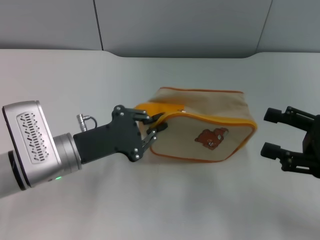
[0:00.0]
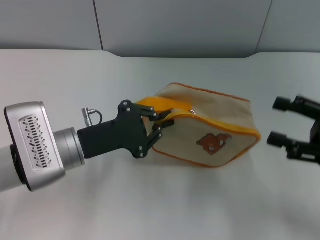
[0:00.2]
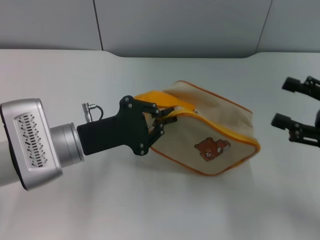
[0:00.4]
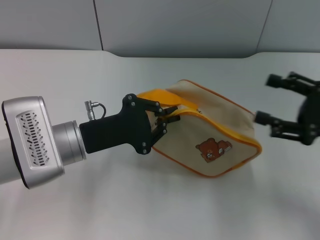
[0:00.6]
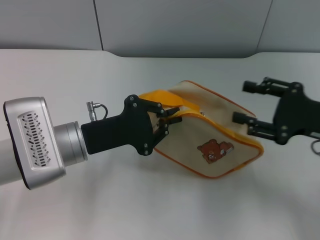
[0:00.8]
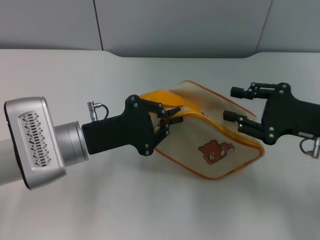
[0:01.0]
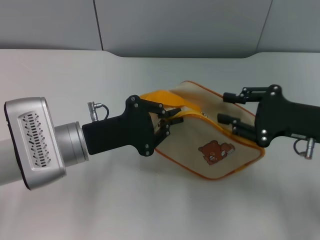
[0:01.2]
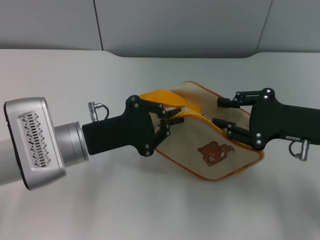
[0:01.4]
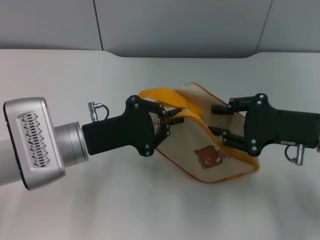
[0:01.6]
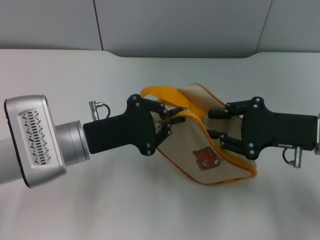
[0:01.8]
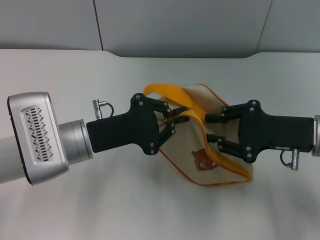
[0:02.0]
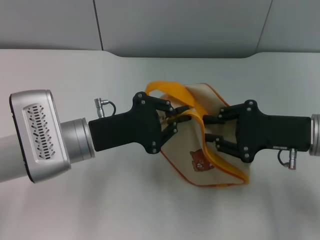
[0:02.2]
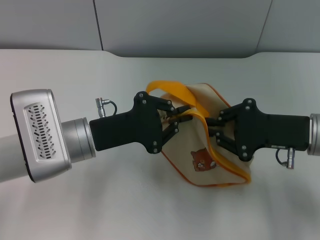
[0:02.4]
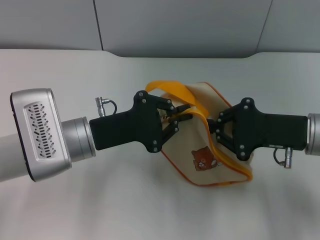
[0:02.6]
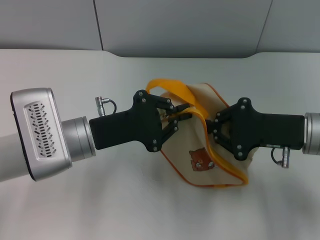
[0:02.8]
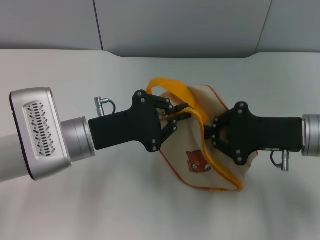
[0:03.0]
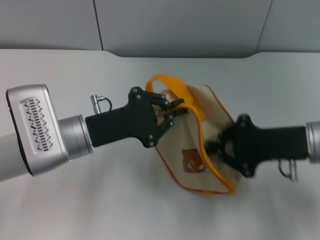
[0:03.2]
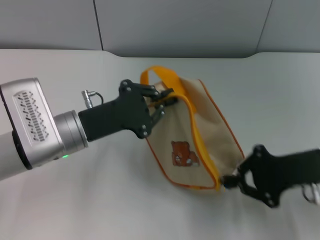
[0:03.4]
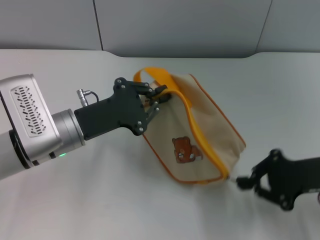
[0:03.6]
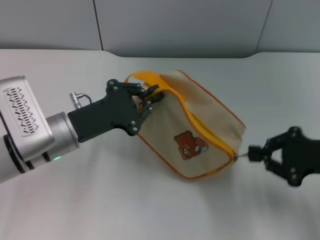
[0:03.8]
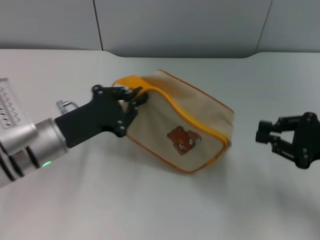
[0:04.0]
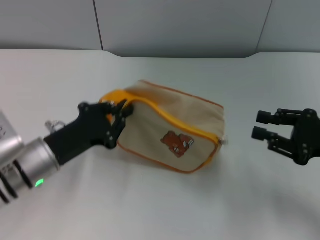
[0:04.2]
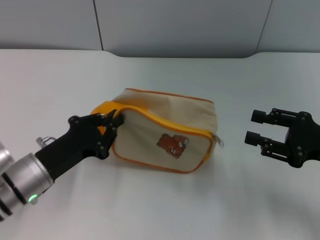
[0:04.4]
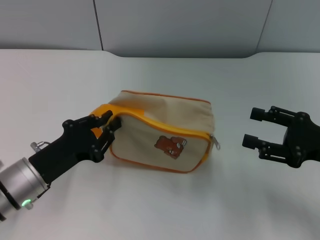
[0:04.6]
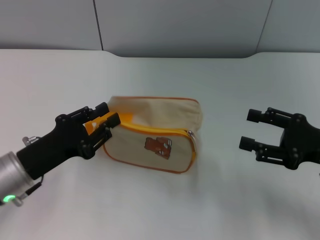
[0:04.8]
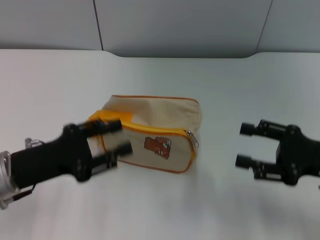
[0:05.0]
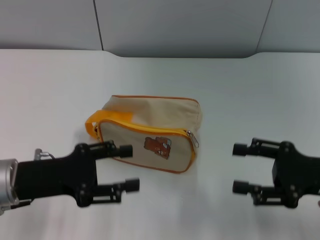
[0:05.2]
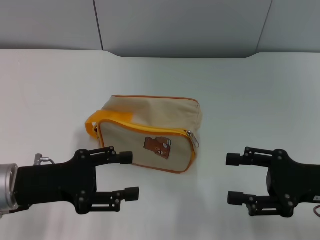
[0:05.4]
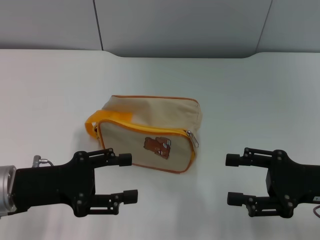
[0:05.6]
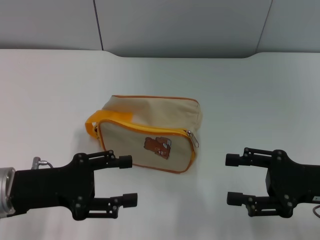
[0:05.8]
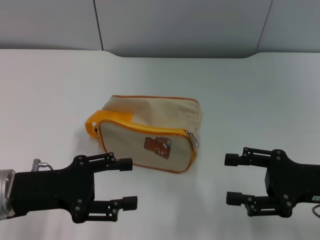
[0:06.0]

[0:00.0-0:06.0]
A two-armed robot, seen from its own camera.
Step, 0:00.6 to 0:03.8: Unzip the zipper of bag with right gripper.
Step, 0:04.0 to 0:05.2: Place the bag on the table with left gripper.
0:00.0 to 0:01.6: The right gripper shifts approximately 10 cm to the left and forward, and closes up.
0:01.6 to 0:03.0: The right gripper closes up.
0:03.0 to 0:04.4: The right gripper is displaced to the right by roughly 5 cm, and opens up, while the left gripper travels to the left and downward by roughly 10 cm.
0:04.4 to 0:06.0: The left gripper is displaced upward by roughly 5 cm, and opens its fingers, while the right gripper opens up.

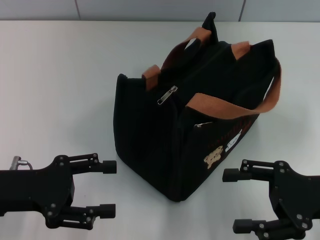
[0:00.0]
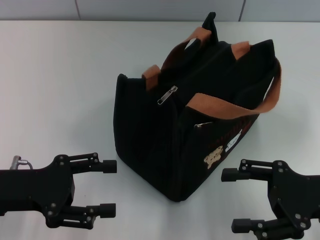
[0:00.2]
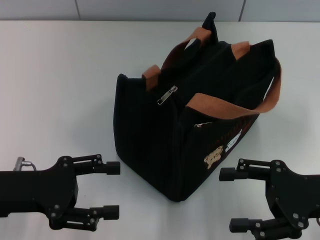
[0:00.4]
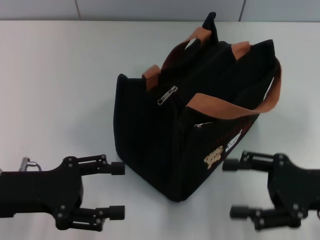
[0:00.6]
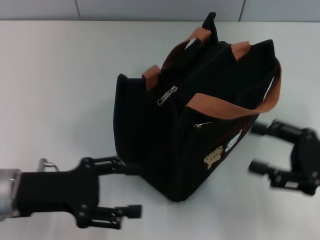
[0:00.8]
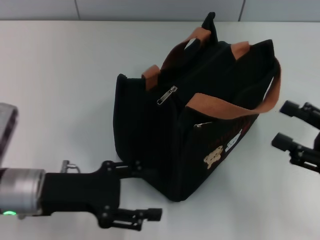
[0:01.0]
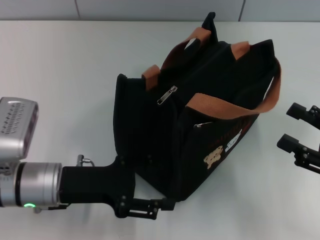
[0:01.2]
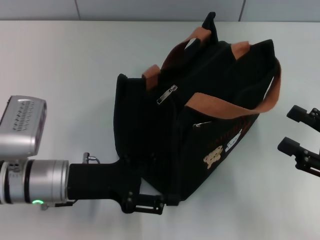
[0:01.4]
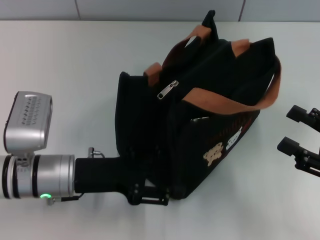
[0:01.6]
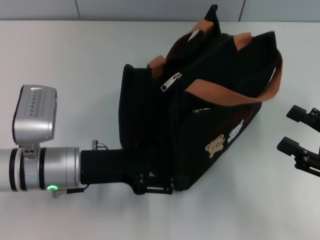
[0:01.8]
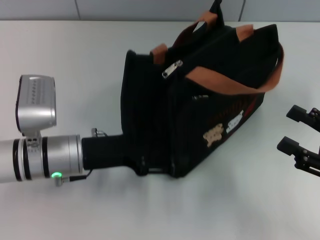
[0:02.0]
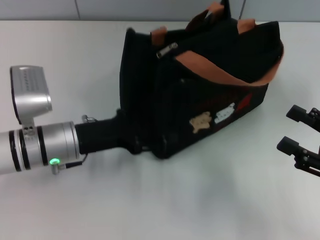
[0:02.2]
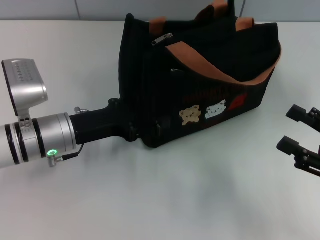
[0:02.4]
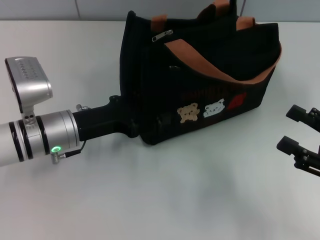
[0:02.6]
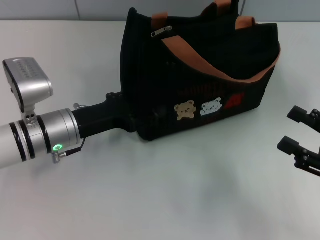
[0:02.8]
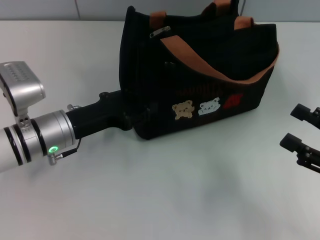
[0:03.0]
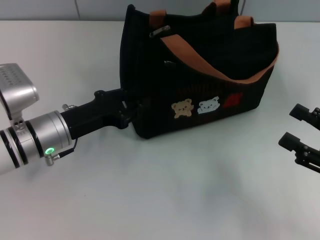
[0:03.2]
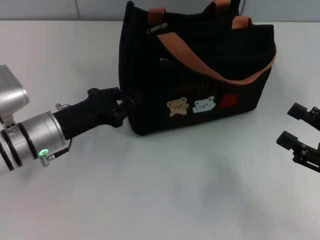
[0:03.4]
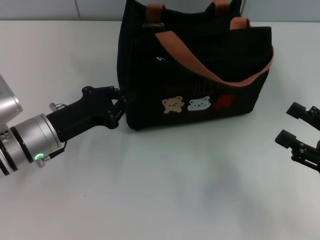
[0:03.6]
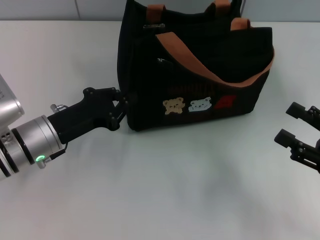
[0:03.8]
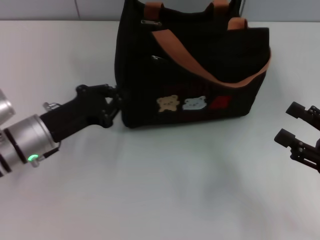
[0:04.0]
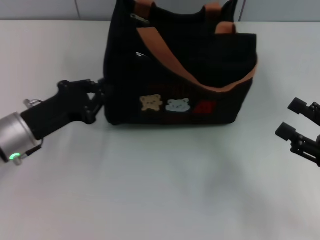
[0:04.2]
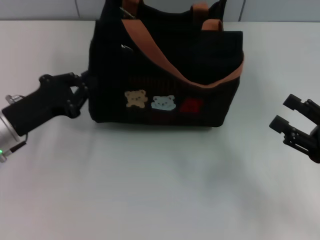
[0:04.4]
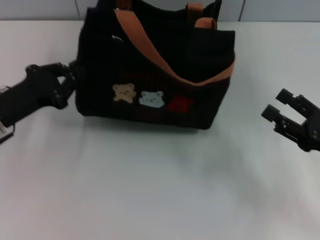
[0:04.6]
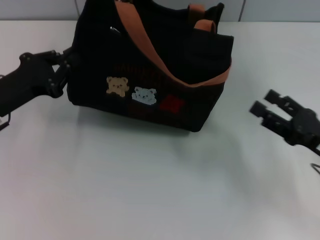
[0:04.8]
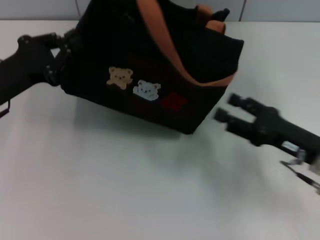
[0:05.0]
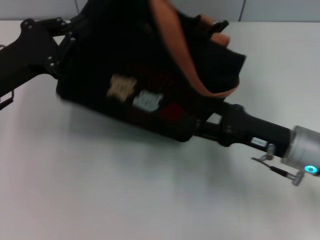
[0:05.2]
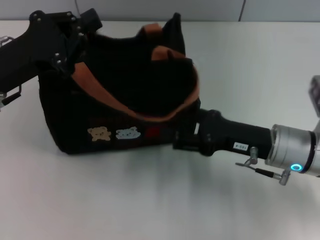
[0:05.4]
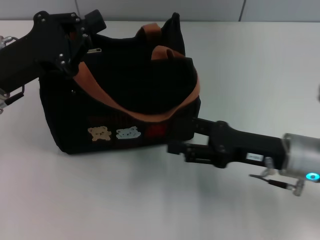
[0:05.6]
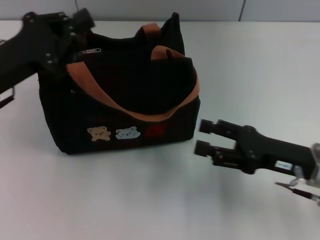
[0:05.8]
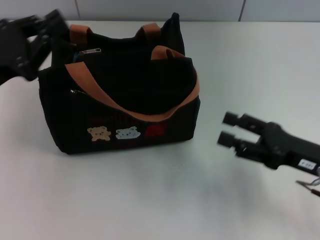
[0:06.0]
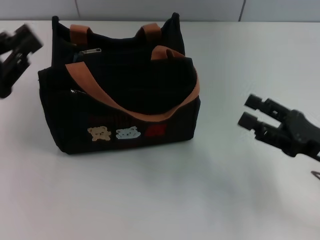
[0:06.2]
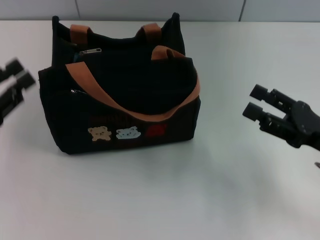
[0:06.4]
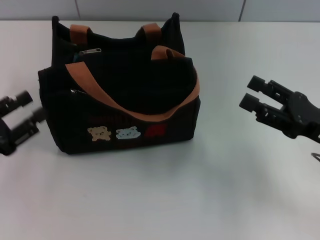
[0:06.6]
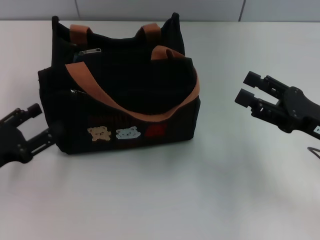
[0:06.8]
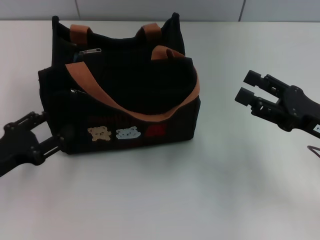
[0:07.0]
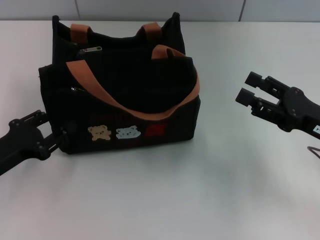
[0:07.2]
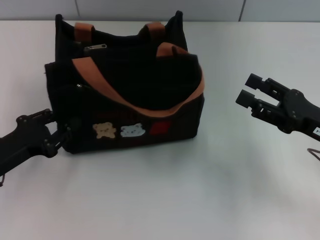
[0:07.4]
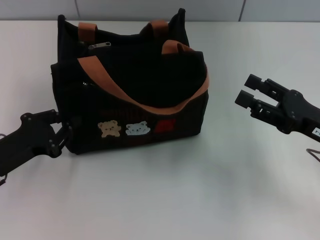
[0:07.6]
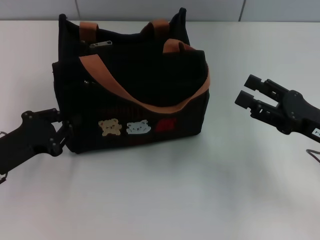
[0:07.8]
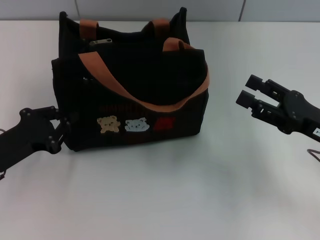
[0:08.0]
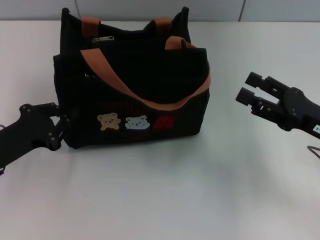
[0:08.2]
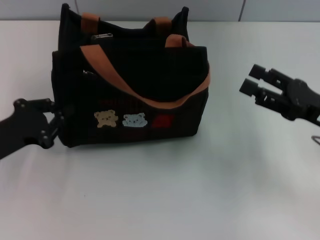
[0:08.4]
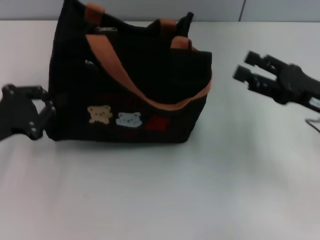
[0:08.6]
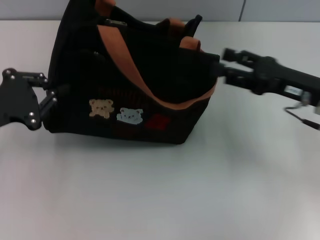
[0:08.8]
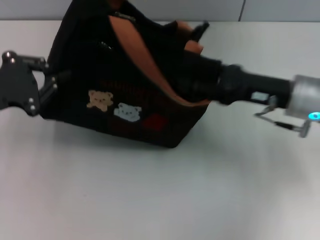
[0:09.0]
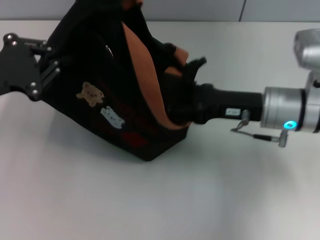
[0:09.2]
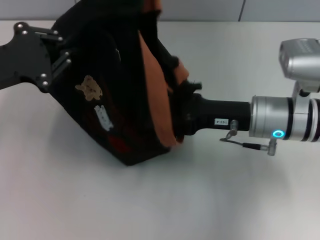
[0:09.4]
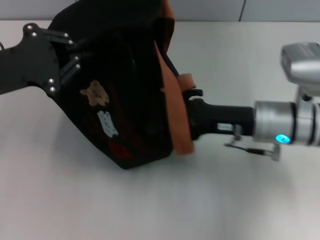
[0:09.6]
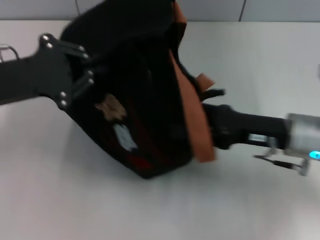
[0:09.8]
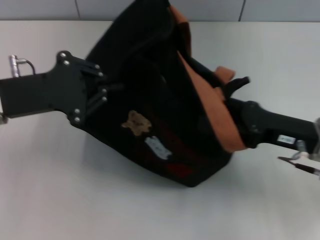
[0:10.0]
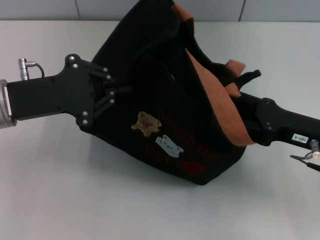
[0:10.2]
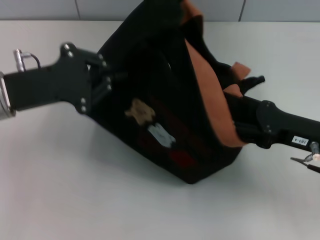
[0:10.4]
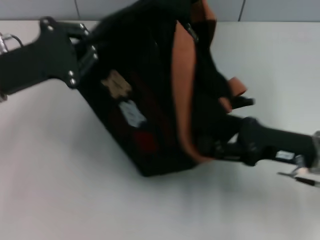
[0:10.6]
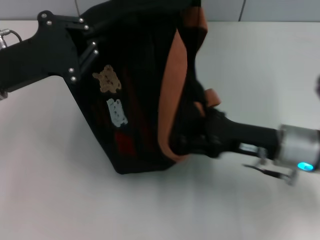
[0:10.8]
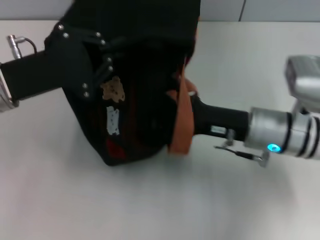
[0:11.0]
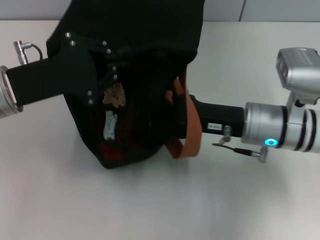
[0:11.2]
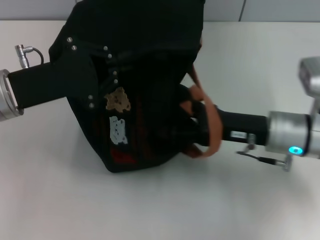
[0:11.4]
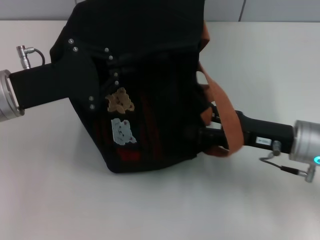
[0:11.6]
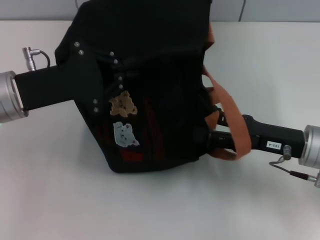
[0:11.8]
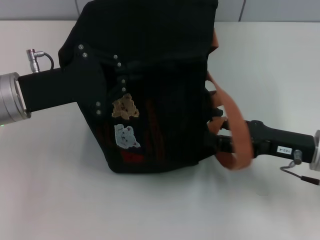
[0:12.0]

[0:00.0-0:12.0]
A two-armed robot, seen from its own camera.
0:00.0 to 0:01.6: The right gripper is displaced to the right by some 5 cm. The left gripper shifts approximately 10 cm to the right.
0:01.6 to 0:03.0: The left gripper heads forward, covering approximately 5 cm.
0:03.0 to 0:04.4: The left gripper goes approximately 5 cm to the left, and closes its fingers.
0:04.4 to 0:06.0: The left gripper heads upward, covering roughly 5 cm, while the right gripper heads to the left, covering roughly 5 cm.
0:06.0 to 0:07.6: The left gripper shifts some 10 cm downward, and opens, then closes again.
0:07.6 to 0:09.0: The left gripper shifts roughly 10 cm upward. The right gripper heads forward and to the left, covering approximately 10 cm.
0:09.0 to 0:10.4: The left gripper travels to the right by some 5 cm. The right gripper travels backward by roughly 5 cm.
0:10.4 to 0:12.0: The right gripper goes to the left and returns, some 10 cm each way.

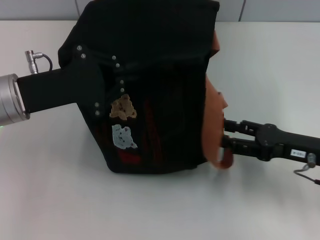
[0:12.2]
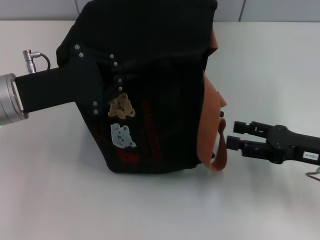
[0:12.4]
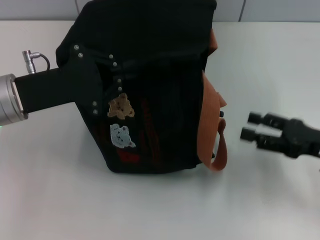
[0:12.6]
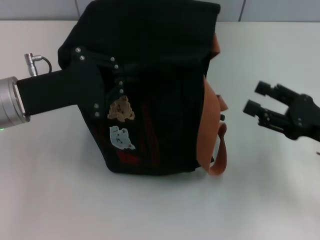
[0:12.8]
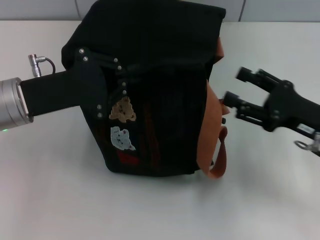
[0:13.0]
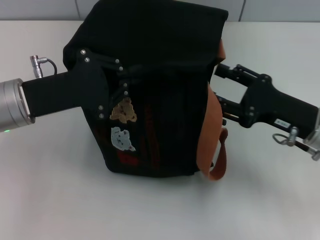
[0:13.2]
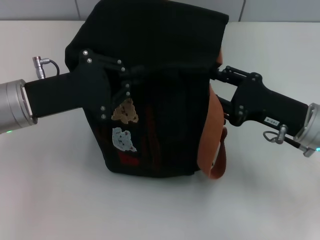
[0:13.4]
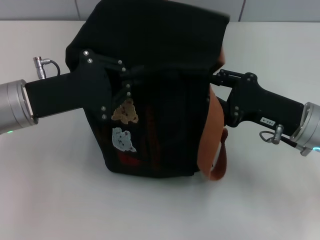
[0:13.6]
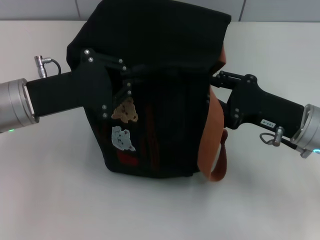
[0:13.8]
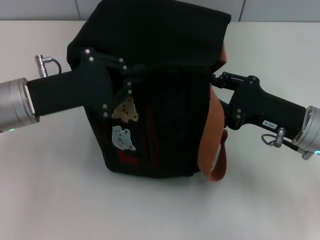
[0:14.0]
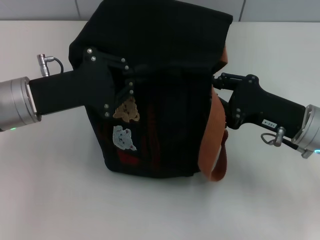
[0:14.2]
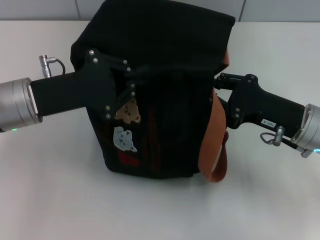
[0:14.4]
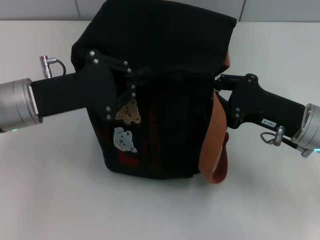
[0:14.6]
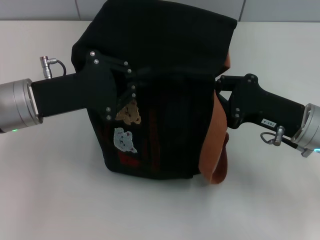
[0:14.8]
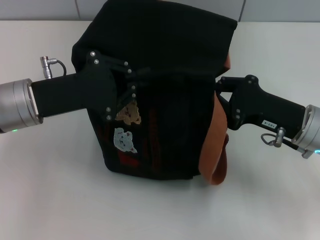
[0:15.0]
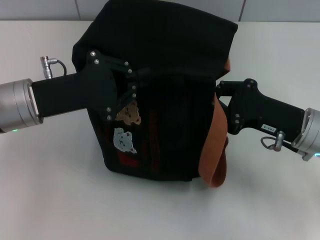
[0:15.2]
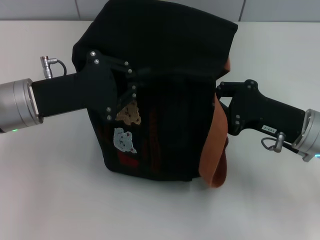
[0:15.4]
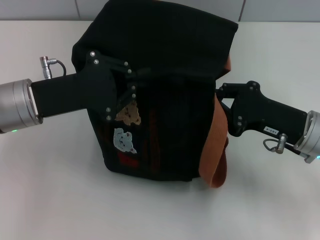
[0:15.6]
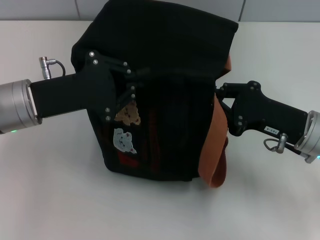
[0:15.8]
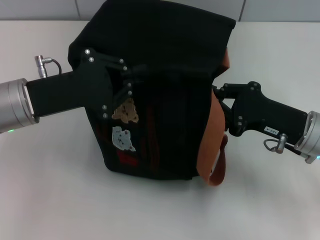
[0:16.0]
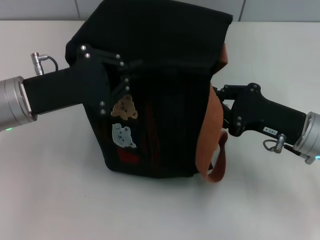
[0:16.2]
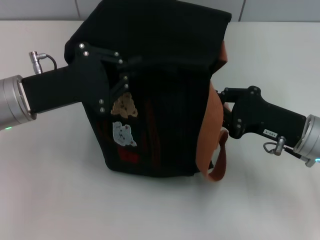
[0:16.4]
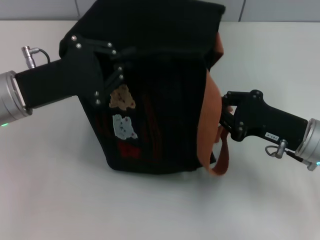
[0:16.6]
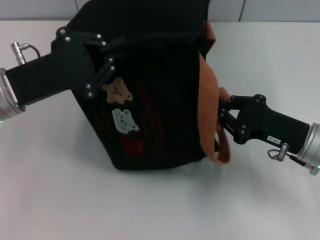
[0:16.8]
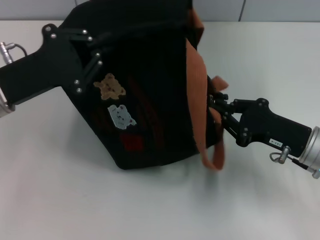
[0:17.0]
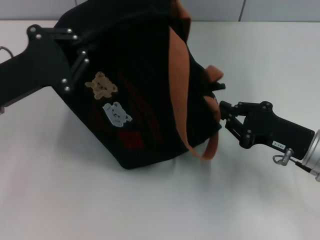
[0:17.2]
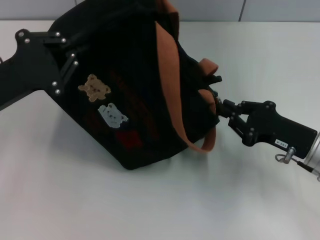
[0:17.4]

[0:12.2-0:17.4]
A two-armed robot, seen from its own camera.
0:12.2 to 0:14.0: The right gripper shifts by approximately 5 cm, and closes its fingers.
0:14.0 to 0:15.6: The right gripper closes.
0:15.6 to 0:17.4: The left gripper shifts about 5 cm to the left.
